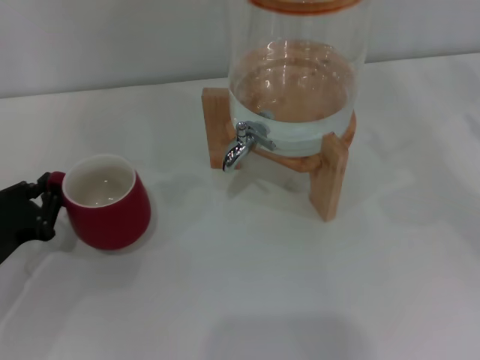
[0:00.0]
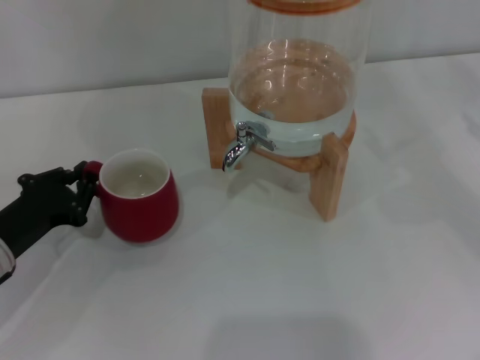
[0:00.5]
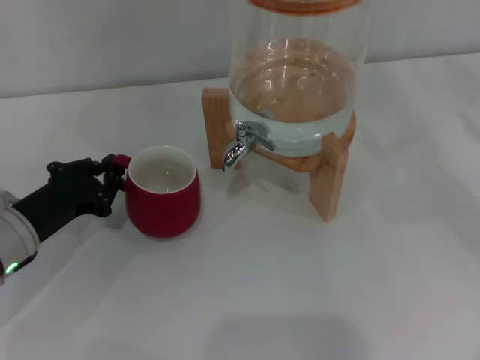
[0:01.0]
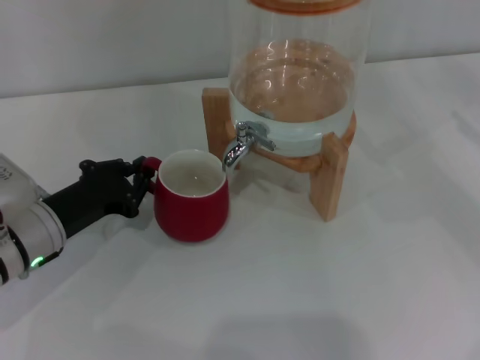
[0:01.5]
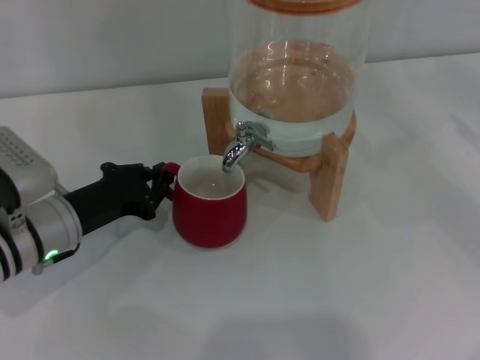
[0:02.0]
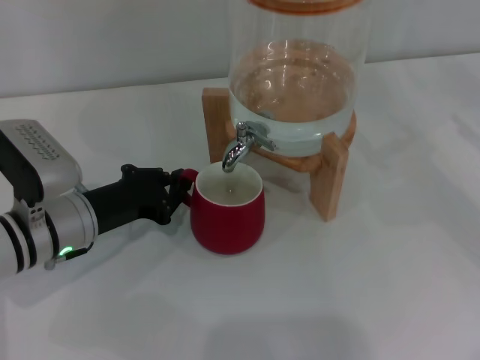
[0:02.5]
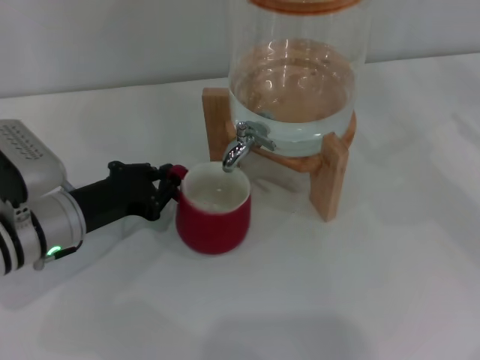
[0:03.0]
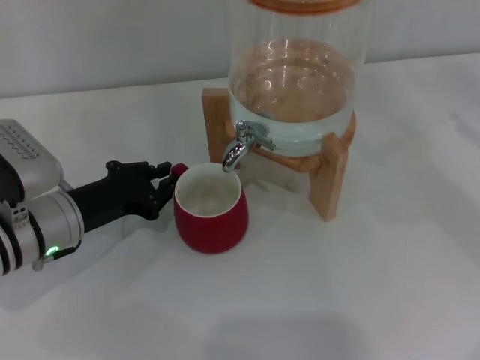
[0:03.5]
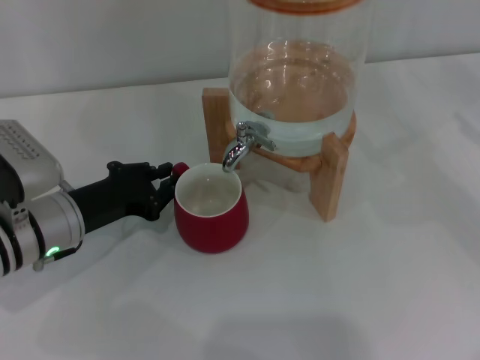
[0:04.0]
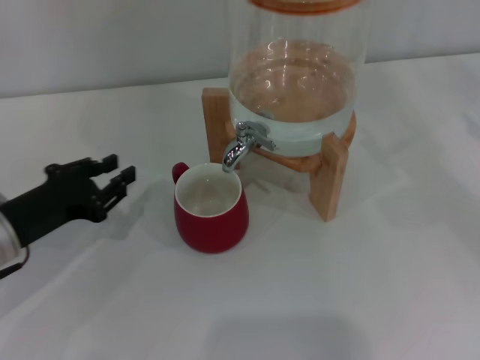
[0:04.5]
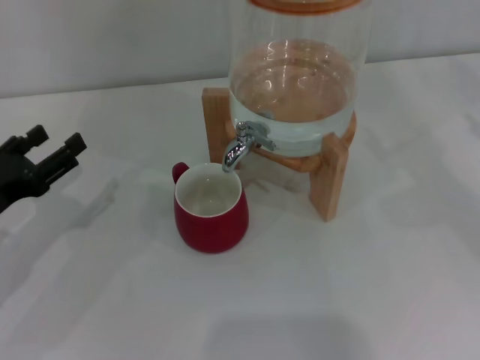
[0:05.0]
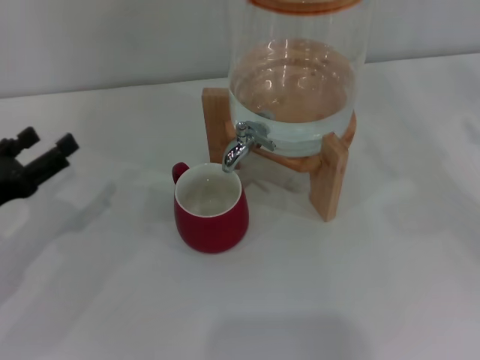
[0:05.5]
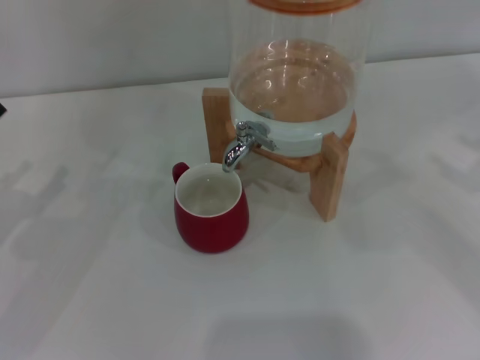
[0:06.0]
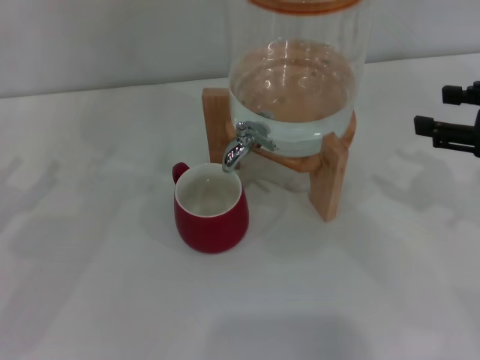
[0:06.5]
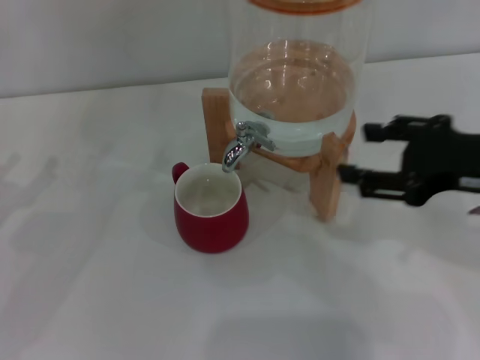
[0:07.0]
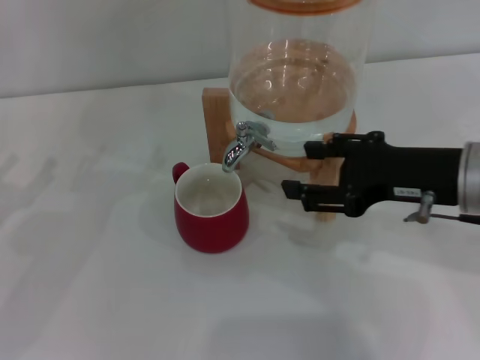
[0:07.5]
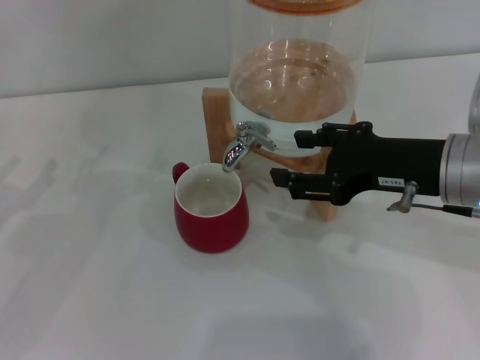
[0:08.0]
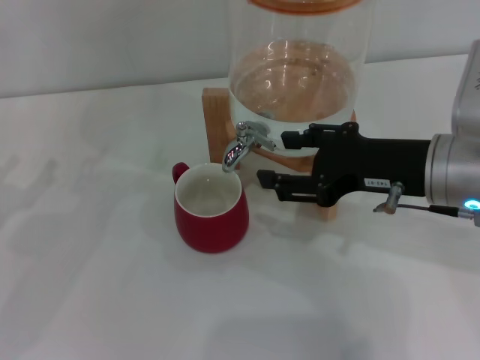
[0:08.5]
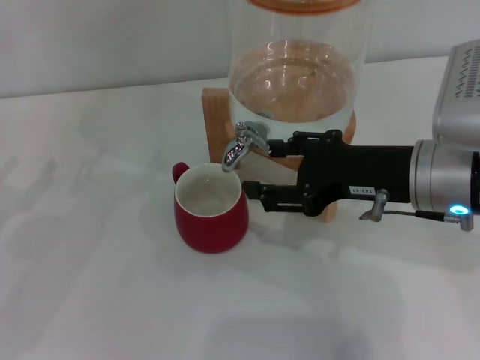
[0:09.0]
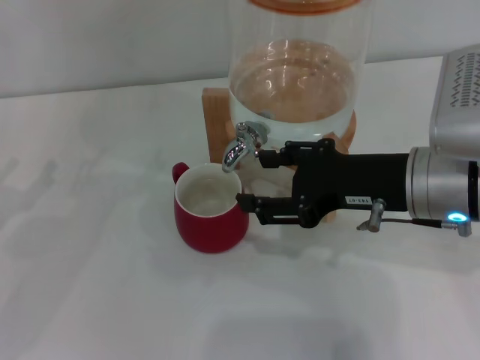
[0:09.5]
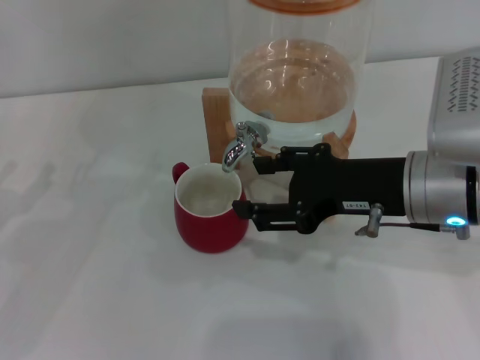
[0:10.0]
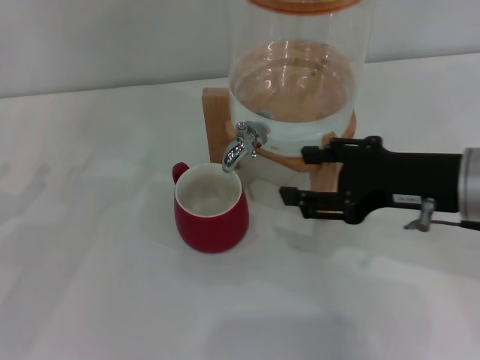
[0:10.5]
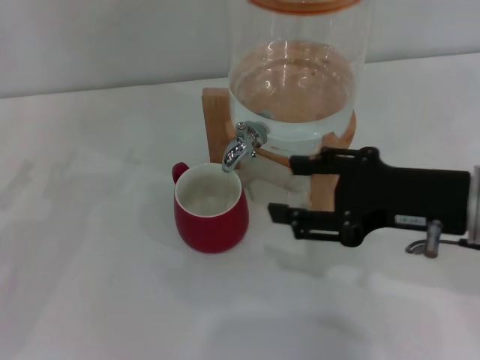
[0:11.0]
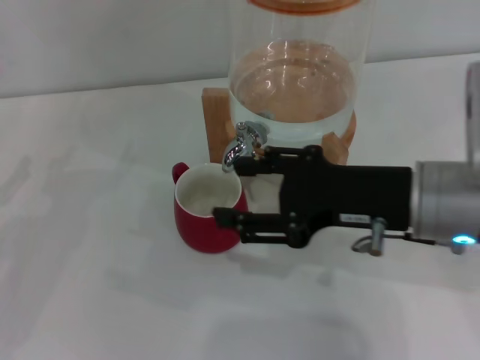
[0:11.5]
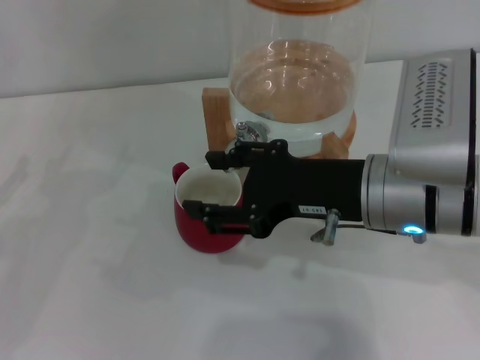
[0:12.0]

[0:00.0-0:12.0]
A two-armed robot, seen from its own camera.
Task of the whole recording: the left gripper pick up the red cup and place it horizontally under the faucet, the right gripper turn on the faucet to fill the cup, and then turn off the faucet.
Step, 0:00.0 to 0:04.0: Move the cup beneath the water dispenser nozzle with the left gripper.
Step, 0:05.0 to 0:12.0: Open the dispenser valve and fill the cup with water with the right gripper.
0:00.0 to 0:02.0: The left gripper goes about 10 cm to the right and forward.
0:02.0 to 0:04.0: The grippers move only a little.
0:04.0 to 0:06.0: The left gripper goes approximately 15 cm to the left, and opens its fingers.
0:06.0 to 0:08.0: The right gripper is displaced to the left by roughly 20 cm.
0:08.0 to 0:10.0: There are only small adjustments of the grippers.
0:10.0 to 0:12.0: The grippers move only a little.

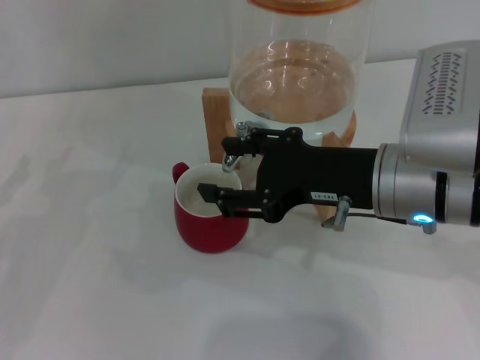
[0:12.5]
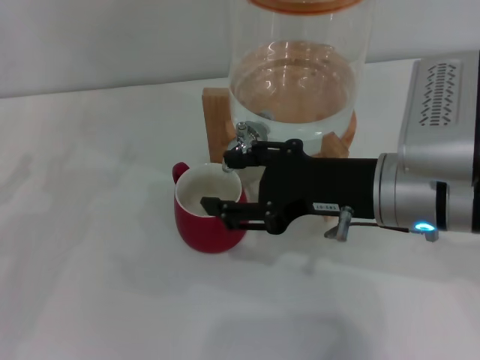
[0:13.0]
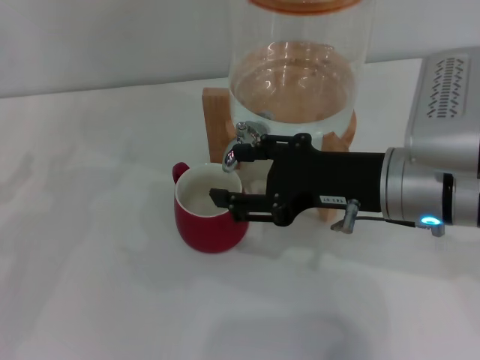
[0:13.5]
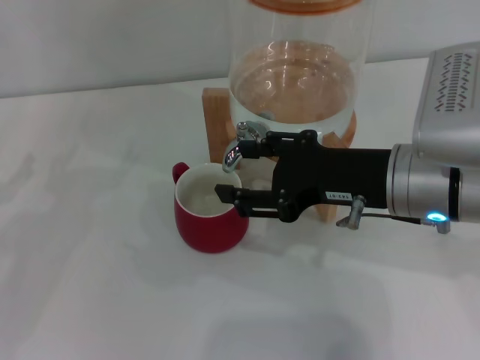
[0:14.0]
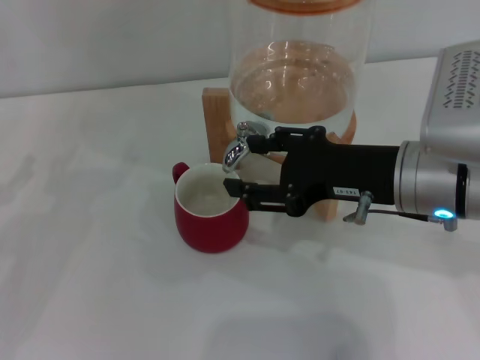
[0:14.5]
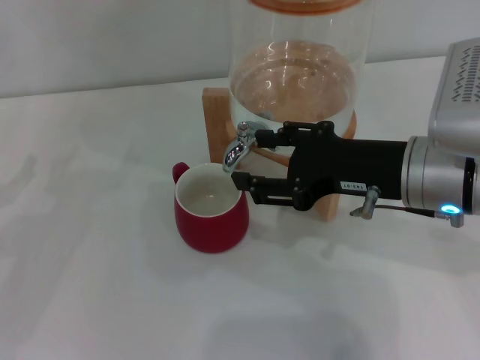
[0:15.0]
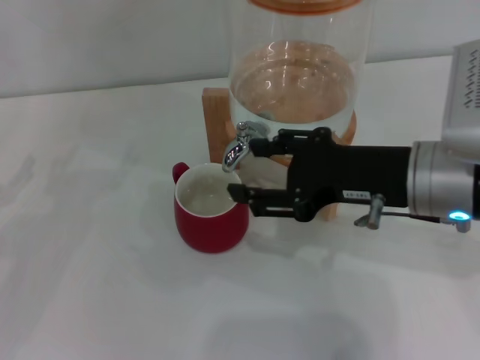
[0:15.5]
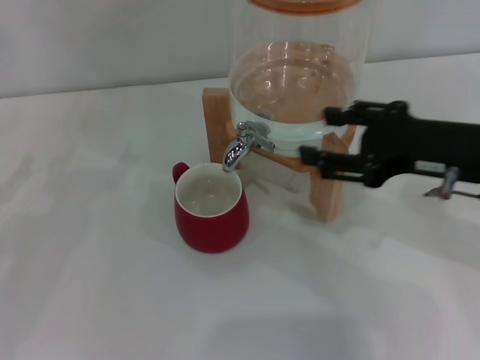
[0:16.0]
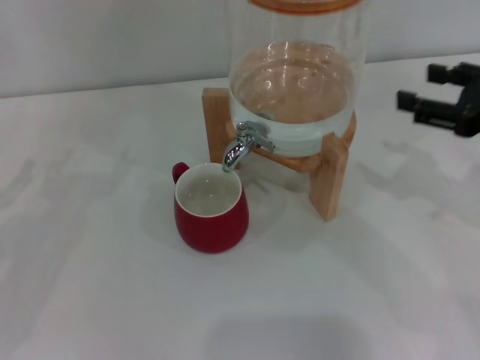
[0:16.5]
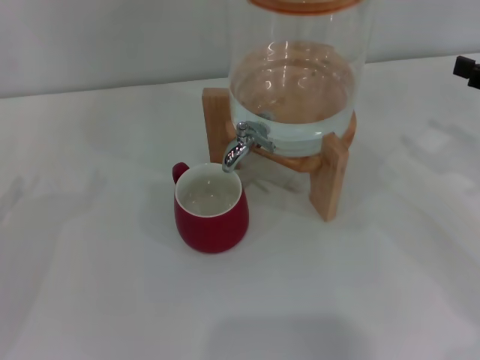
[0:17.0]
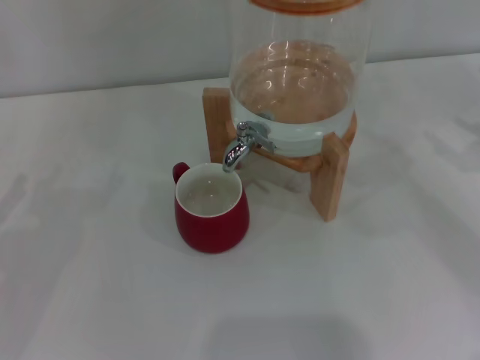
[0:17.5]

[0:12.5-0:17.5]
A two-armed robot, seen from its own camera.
Task of the whole recording: the left gripper pick up the red cup and place it horizontally under the faucet, the right gripper turn on the faucet to fill the cup, and then turn off the faucet.
Step, 0:12.5 to 0:15.5: Close the dispenser valve with the right gripper.
0:12.5 to 0:15.0: The grippers make only small movements.
0:15.0 to 0:17.5: The right gripper travels to the right by some 20 cm.
